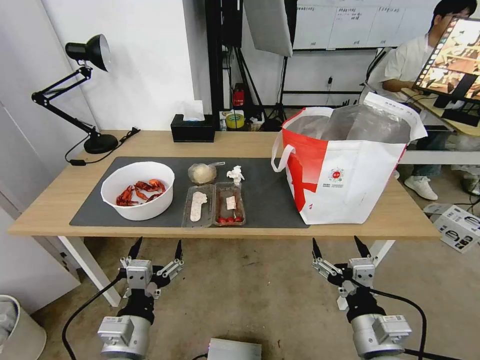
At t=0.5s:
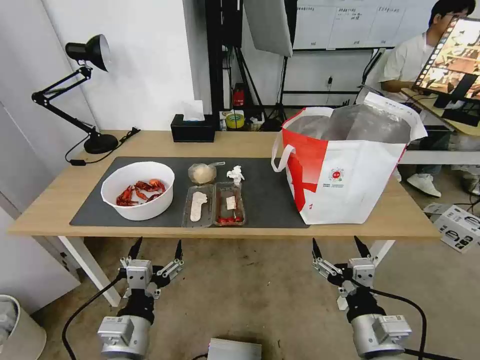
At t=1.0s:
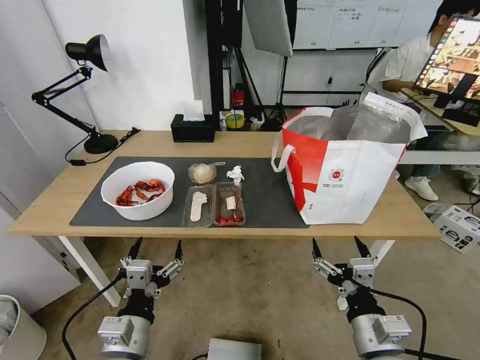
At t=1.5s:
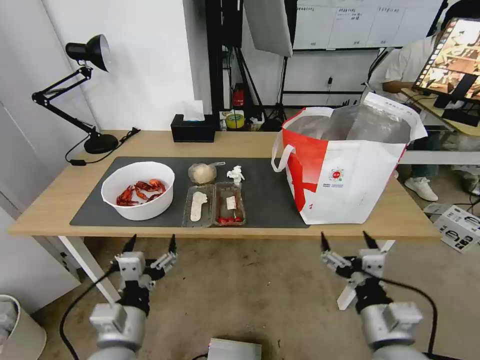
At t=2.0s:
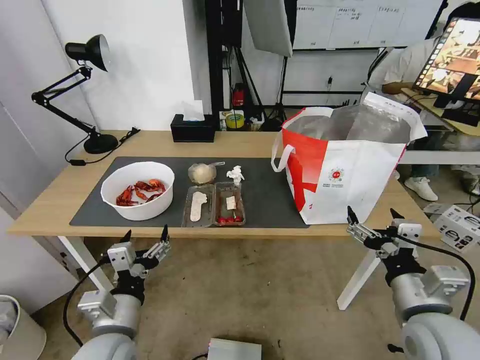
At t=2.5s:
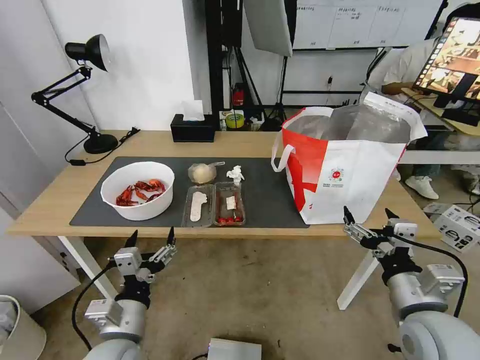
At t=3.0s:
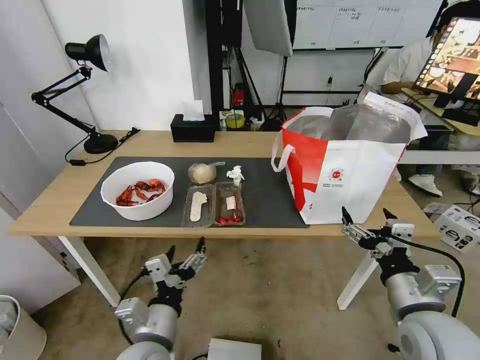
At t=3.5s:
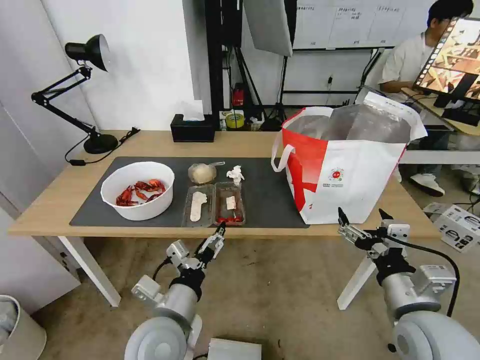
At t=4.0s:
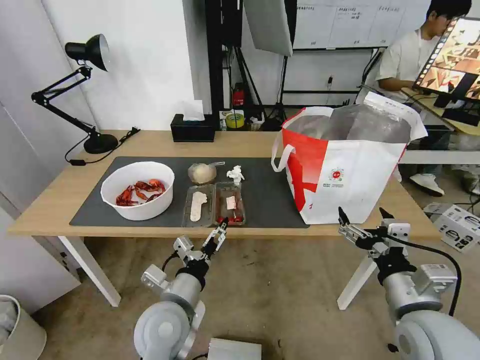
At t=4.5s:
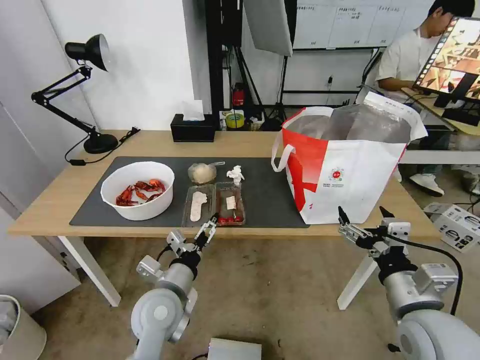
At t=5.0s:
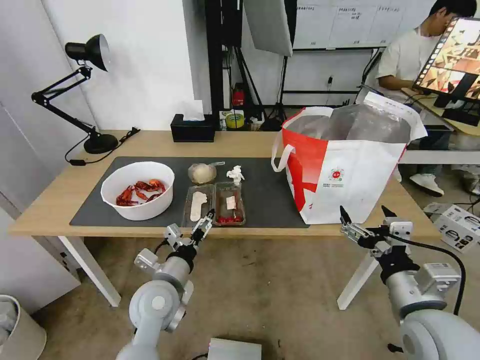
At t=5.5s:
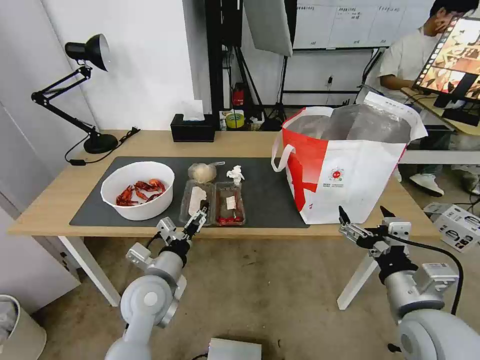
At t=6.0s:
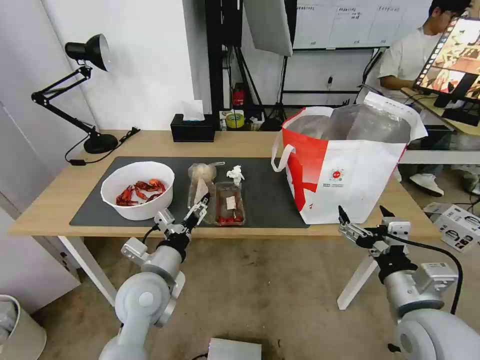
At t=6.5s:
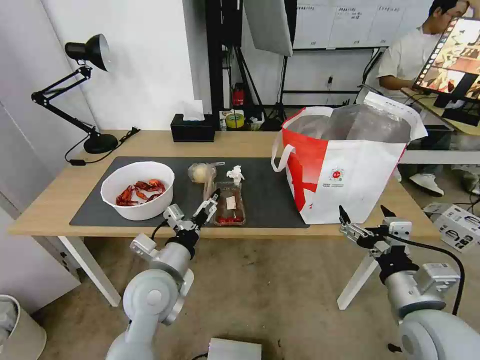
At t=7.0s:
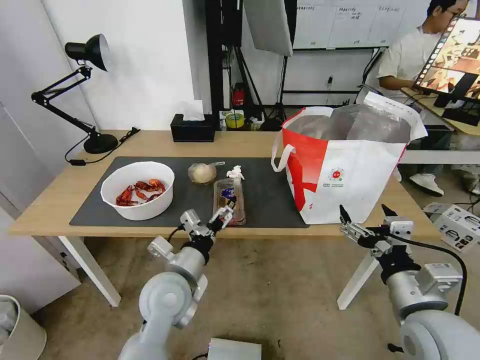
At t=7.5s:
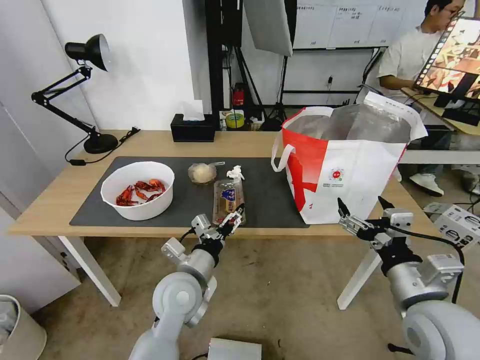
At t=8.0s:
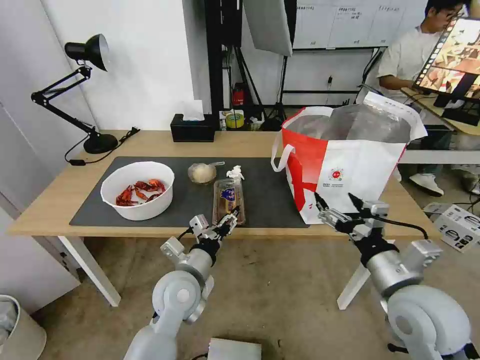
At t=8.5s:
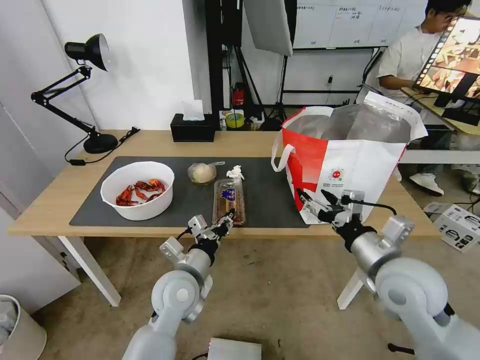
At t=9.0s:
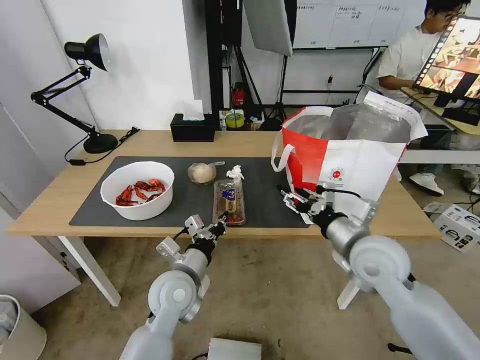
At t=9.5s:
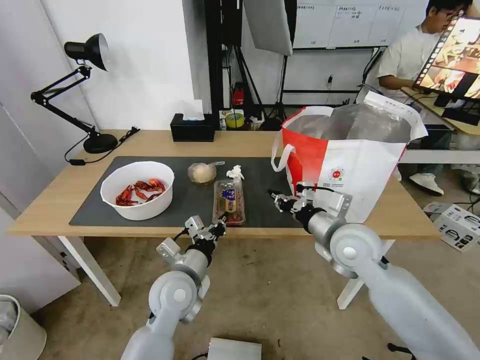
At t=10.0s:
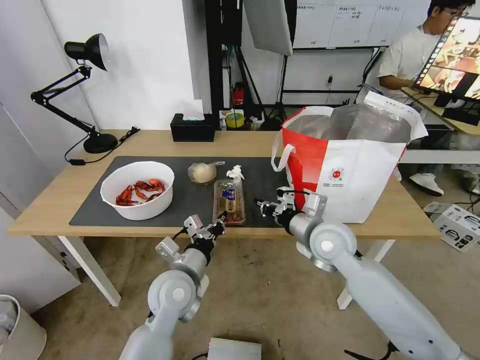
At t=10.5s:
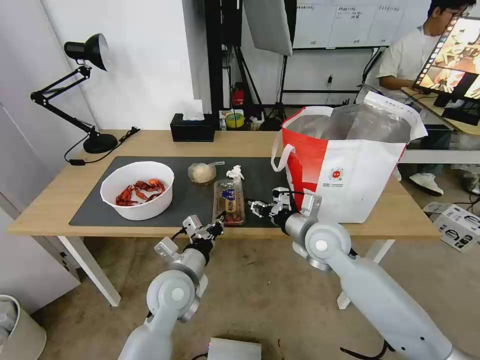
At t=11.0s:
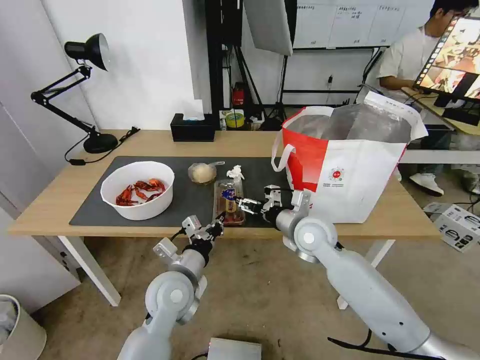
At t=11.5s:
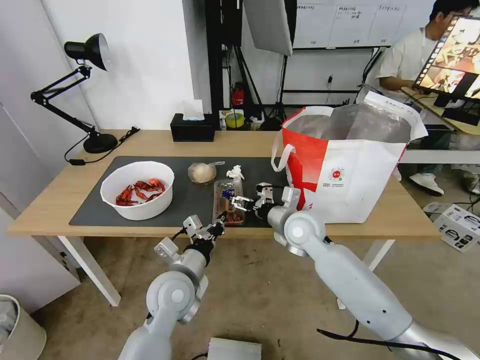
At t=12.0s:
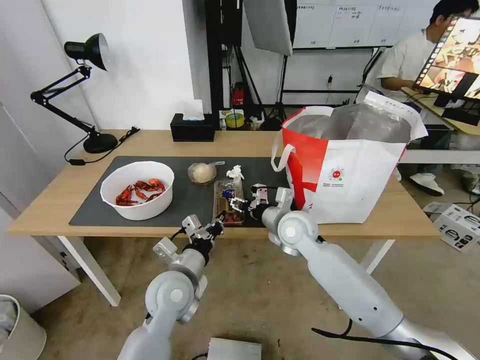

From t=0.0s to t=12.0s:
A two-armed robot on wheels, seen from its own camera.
Task of the whole recording: Pick up the trash from the table and place it into the takeout bag.
From t=2.0s to t=4.0s: The left gripper heads to the right and forward, covering roughly 10 cm.
From t=4.0s to t=6.0s: The left gripper shifts by approximately 5 cm.
From t=6.0s to t=8.0s: The left gripper is displaced to the right by approximately 5 cm, and closes its fingers.
From t=8.0s to t=10.0s: The right gripper moves forward and to the left, some 20 cm, and closes. Meanwhile the left gripper closes.
From t=10.0s to t=12.0s: The right gripper travels to the left and forward by about 10 cm, and opens its fingers.

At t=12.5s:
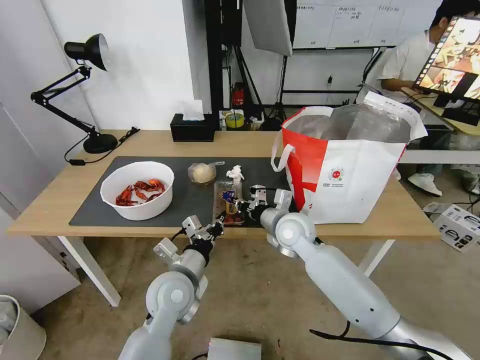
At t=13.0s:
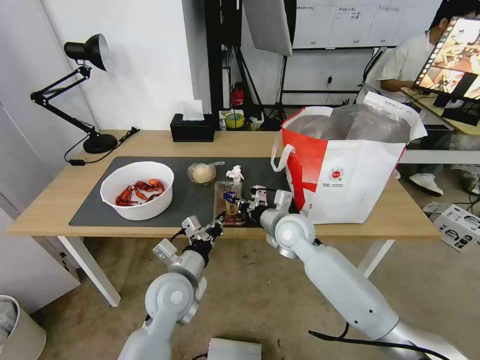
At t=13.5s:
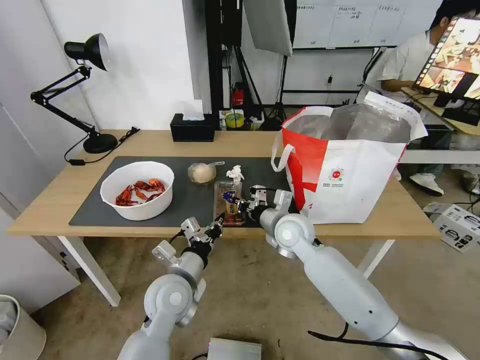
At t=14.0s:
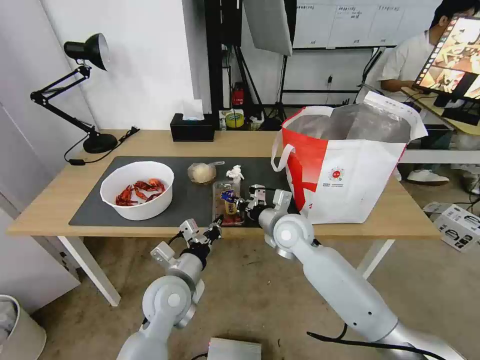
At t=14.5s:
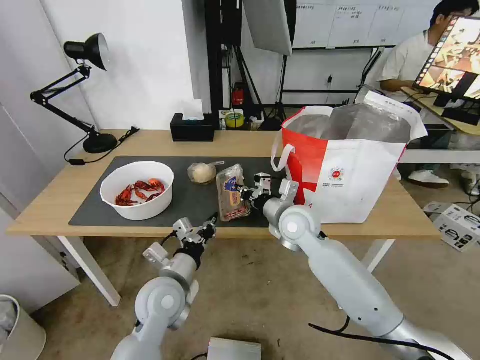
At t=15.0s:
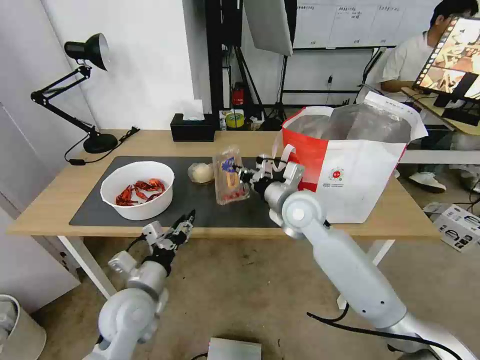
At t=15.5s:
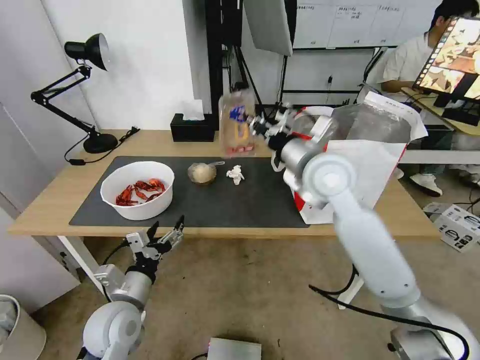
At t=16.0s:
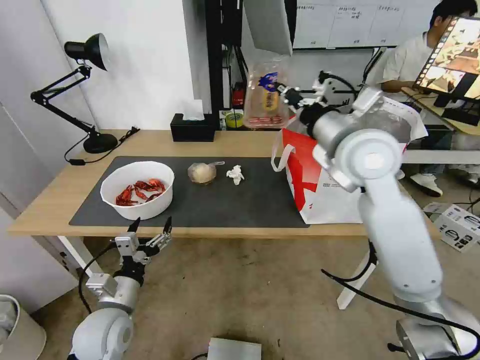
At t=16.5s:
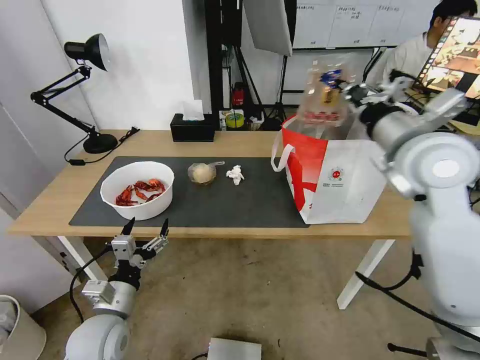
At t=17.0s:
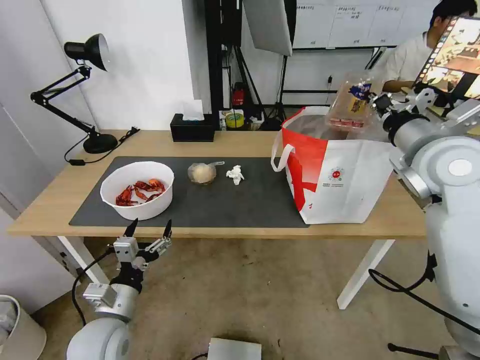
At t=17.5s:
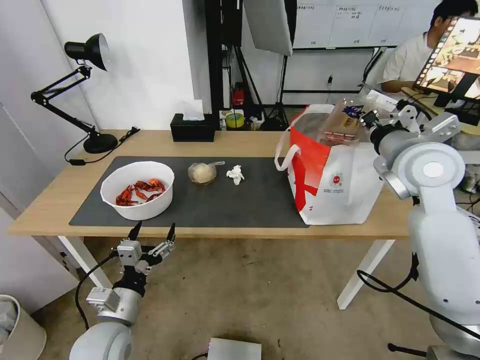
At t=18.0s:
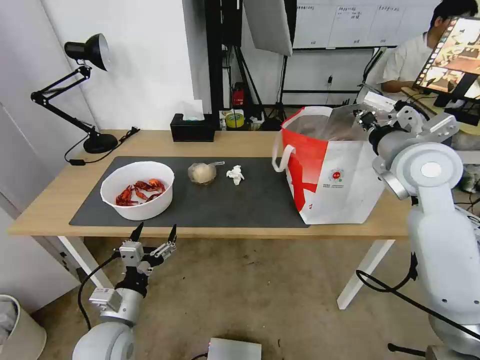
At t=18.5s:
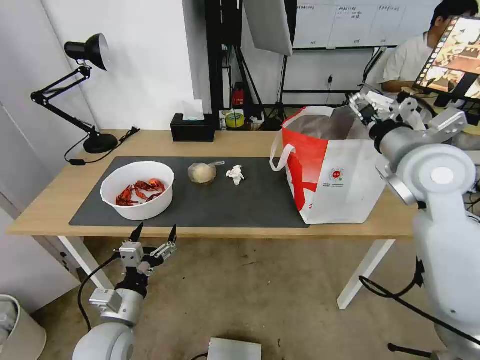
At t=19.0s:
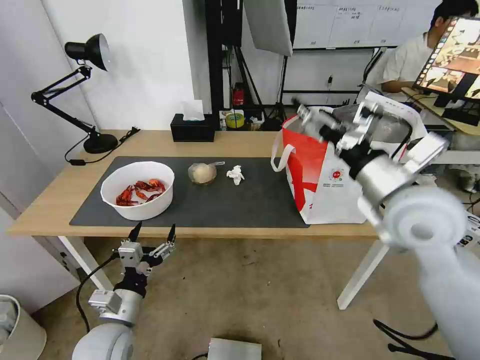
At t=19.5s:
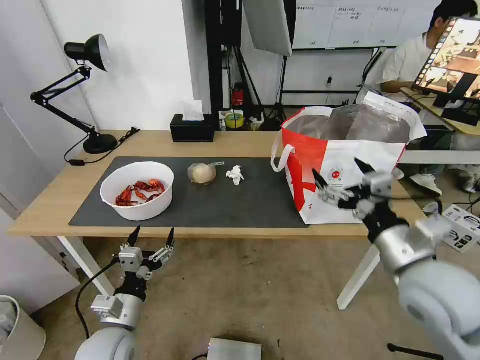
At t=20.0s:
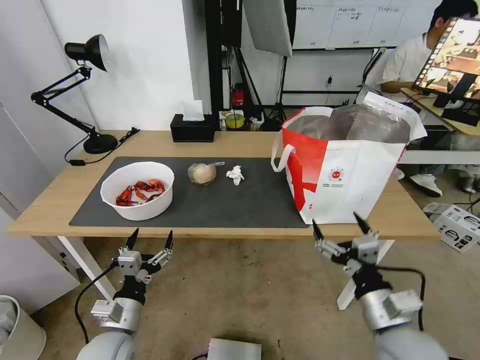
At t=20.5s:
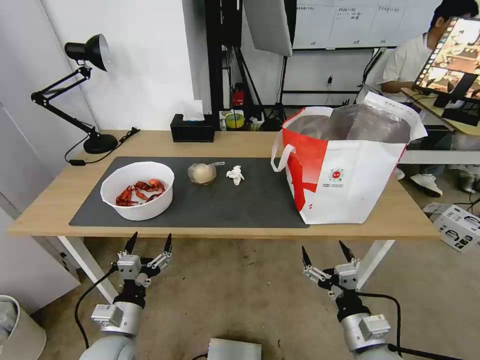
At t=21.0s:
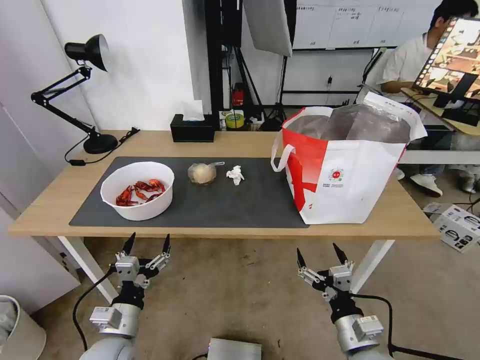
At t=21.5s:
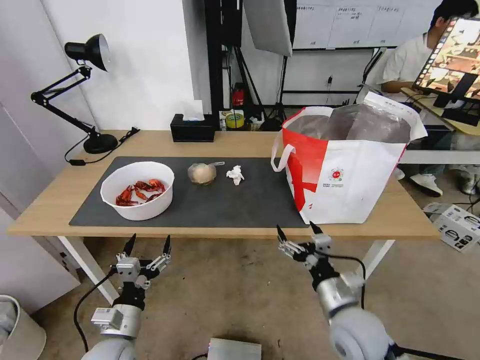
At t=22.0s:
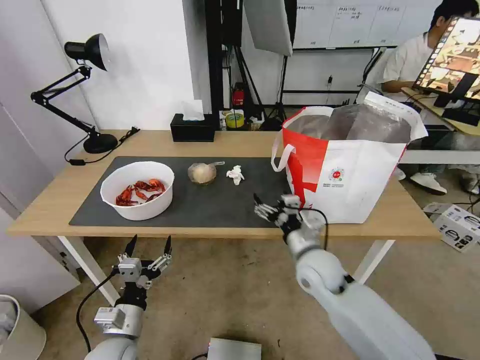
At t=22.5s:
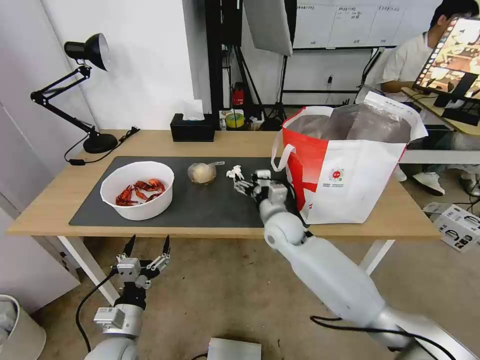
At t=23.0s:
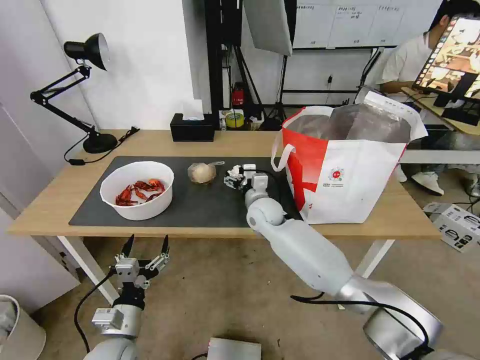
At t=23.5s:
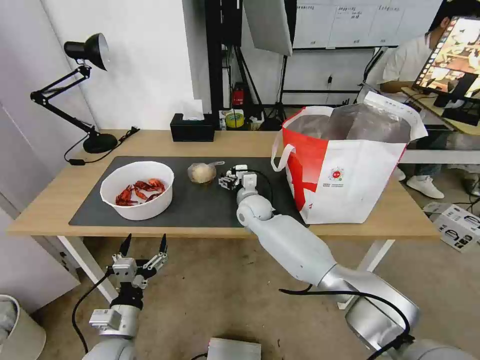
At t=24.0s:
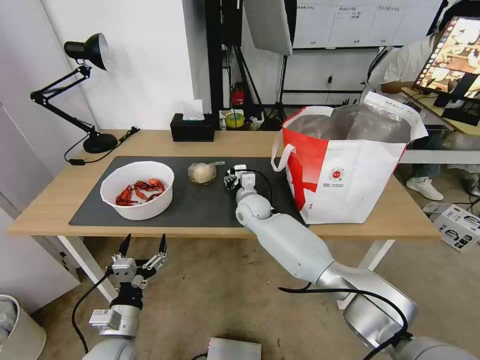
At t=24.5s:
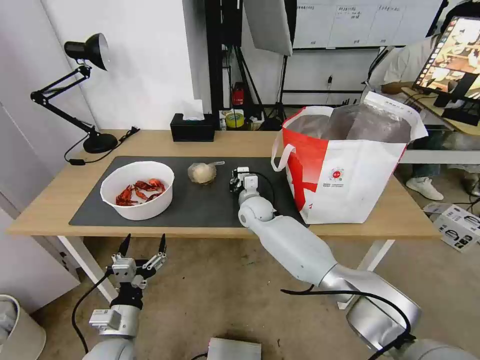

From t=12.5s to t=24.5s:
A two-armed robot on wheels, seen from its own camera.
Task of the whole recording: Pick up the trash from the table and place it into the takeout bag.
From t=12.5s to t=14.5s: The grippers move only a little.
From t=14.5s to t=16.5s: The right gripper is displaced upward and to the right by roughly 25 cm. Meanwhile the left gripper heads to the left and backward, covering about 10 cm, and opens up.
From t=16.5s to t=18.5s: The right gripper opens.
From t=18.5s to t=20.5s: The right gripper moves downward and backward, some 40 cm.
From t=20.5s to t=22.5s: The right gripper goes roughly 35 cm forward and to the left.
From t=22.5s to t=24.5s: The right gripper travels forward and to the left by some 10 cm, and closes.

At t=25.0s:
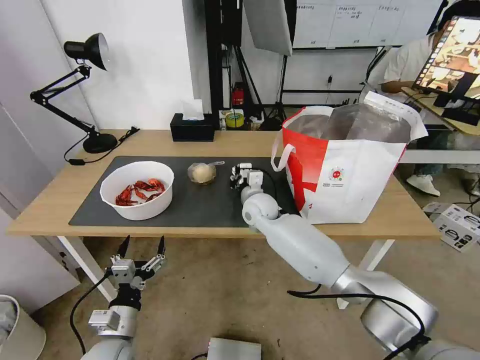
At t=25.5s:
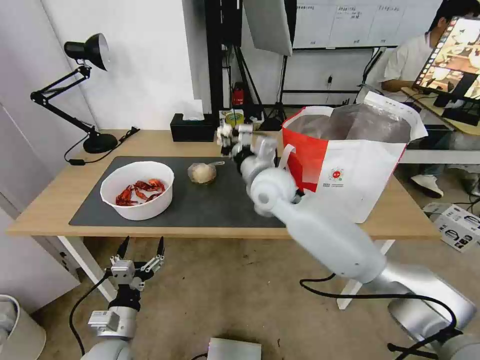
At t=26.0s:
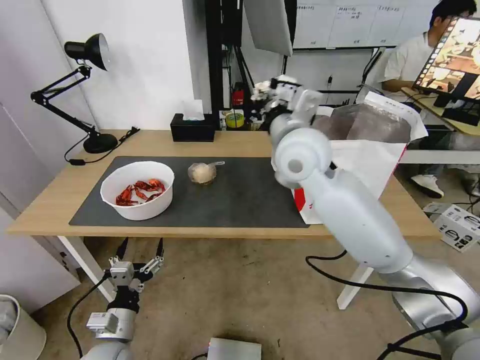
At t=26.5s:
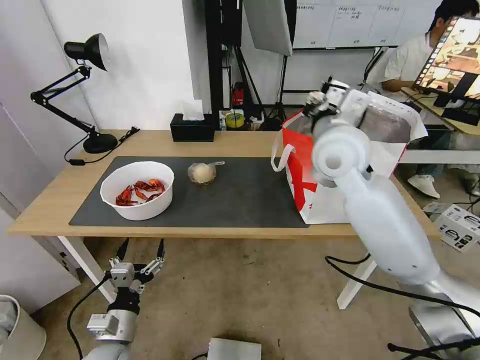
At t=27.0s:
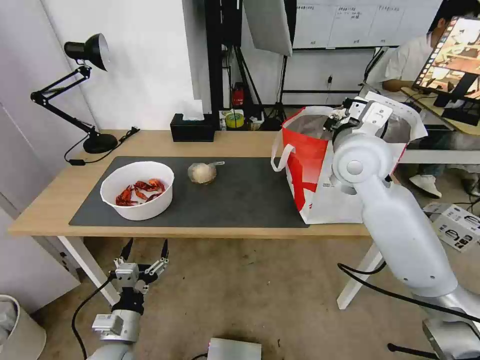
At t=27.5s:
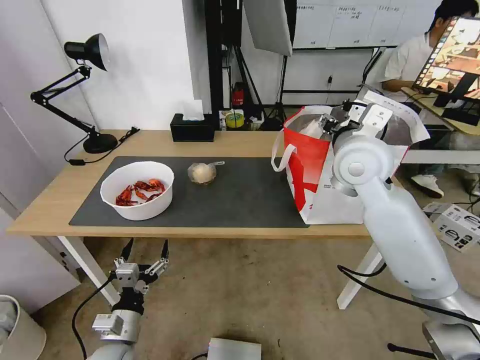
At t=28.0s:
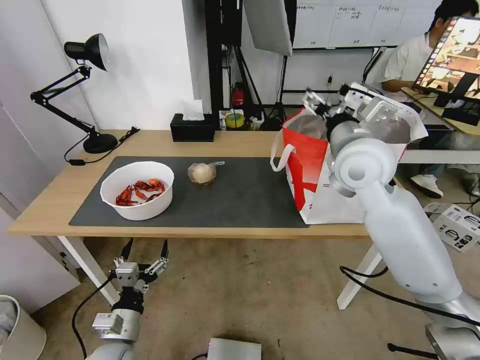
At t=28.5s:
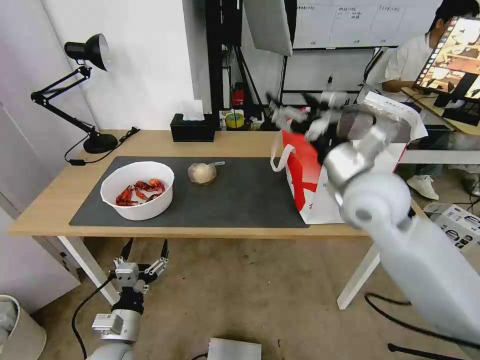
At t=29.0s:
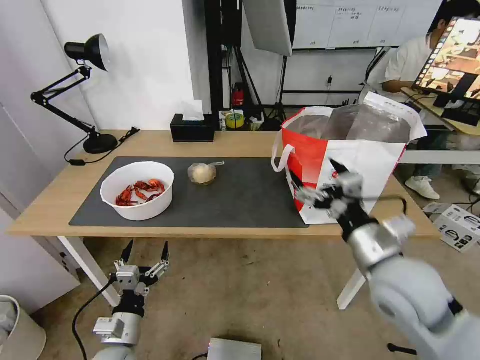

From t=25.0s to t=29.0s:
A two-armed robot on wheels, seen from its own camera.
Task of the whole recording: Pick up the trash from the table and place it into the takeout bag.
From t=25.0s to t=27.0s: The right gripper heads upward and to the right, covering about 30 cm.
From t=27.0s to t=29.0s: The right gripper goes approximately 20 cm backward and downward, and opens.
